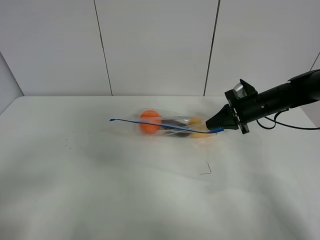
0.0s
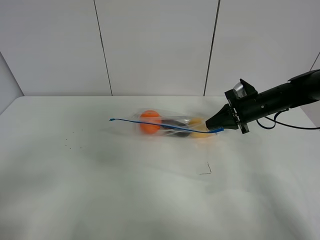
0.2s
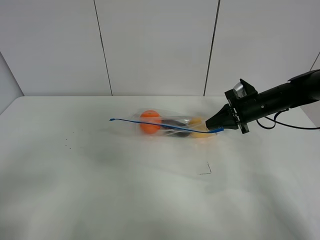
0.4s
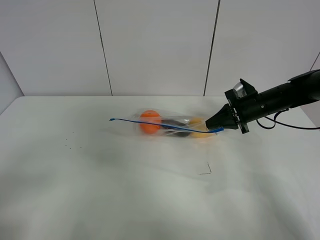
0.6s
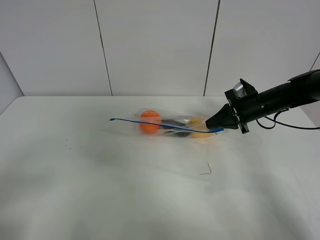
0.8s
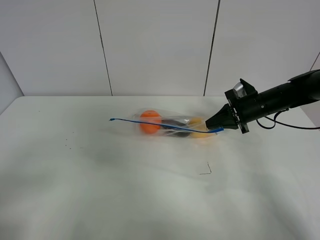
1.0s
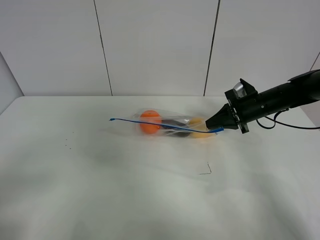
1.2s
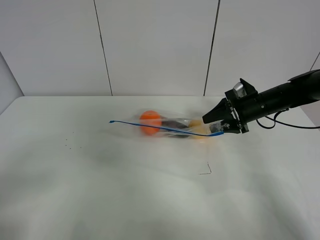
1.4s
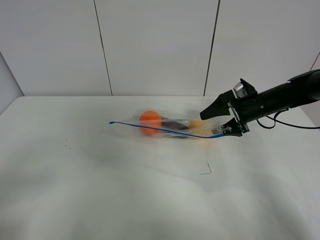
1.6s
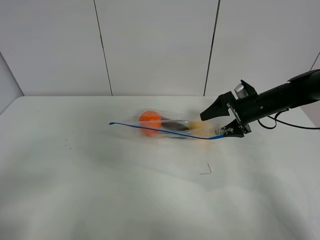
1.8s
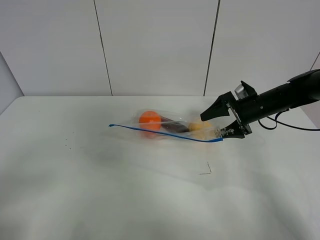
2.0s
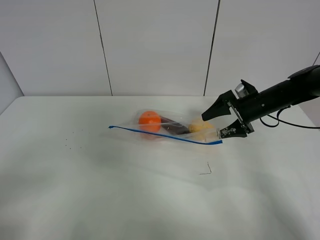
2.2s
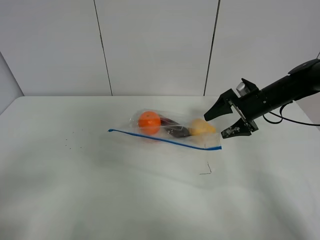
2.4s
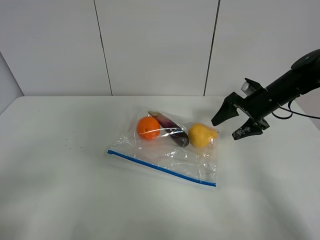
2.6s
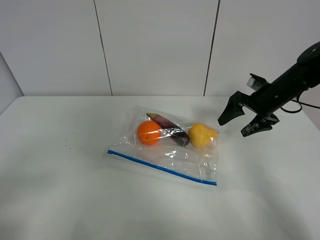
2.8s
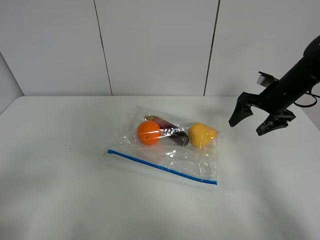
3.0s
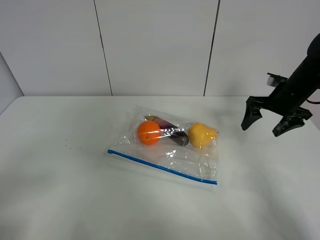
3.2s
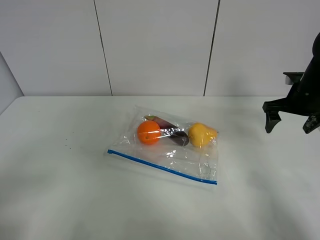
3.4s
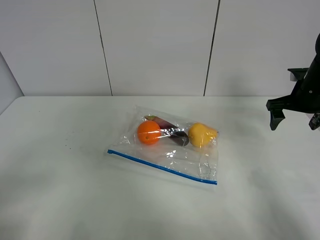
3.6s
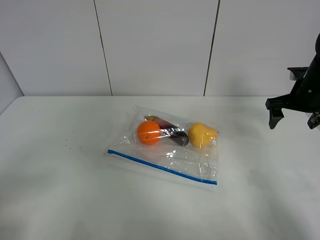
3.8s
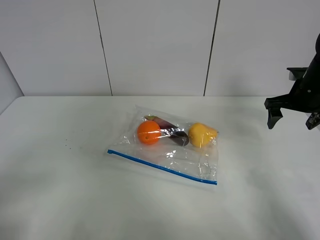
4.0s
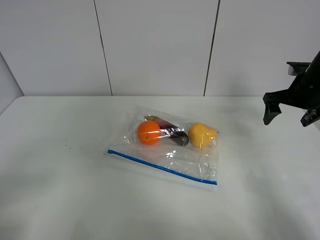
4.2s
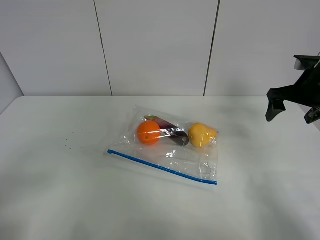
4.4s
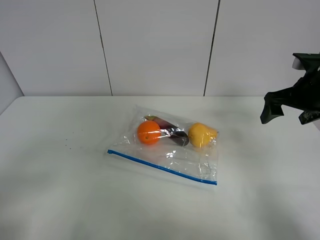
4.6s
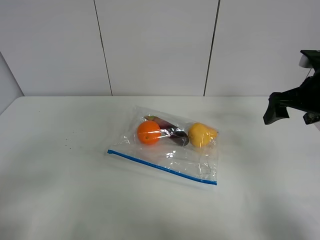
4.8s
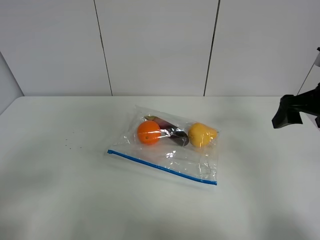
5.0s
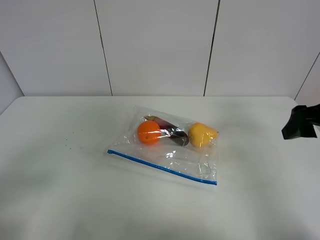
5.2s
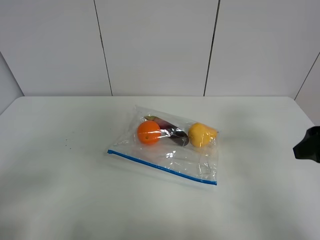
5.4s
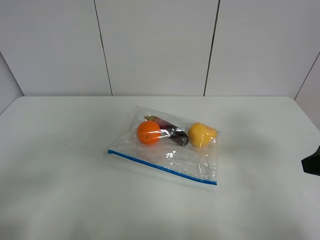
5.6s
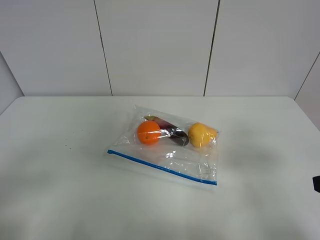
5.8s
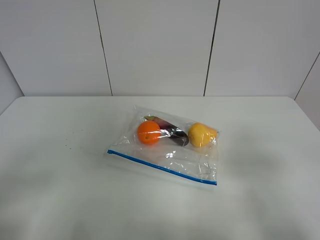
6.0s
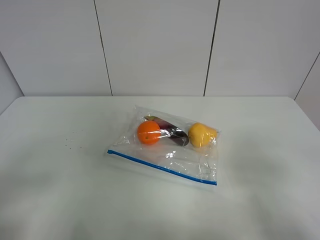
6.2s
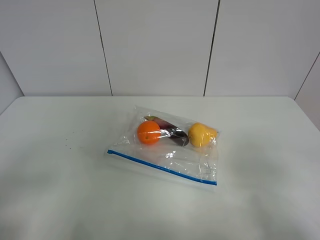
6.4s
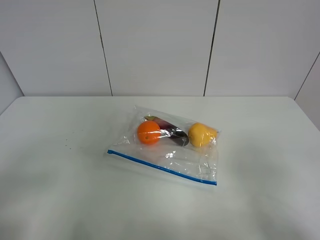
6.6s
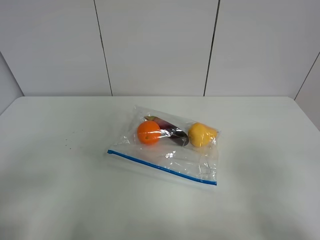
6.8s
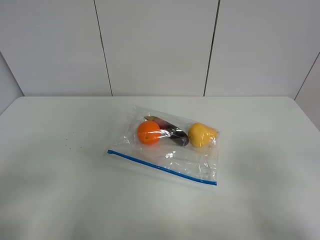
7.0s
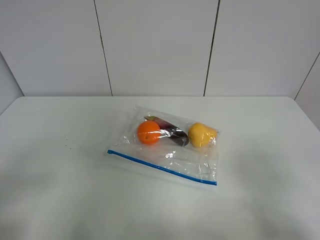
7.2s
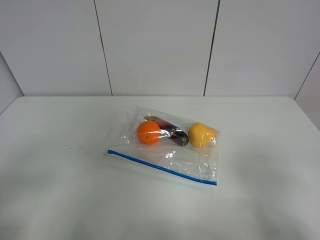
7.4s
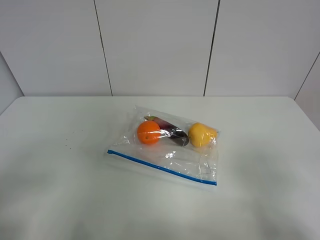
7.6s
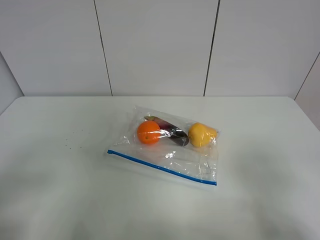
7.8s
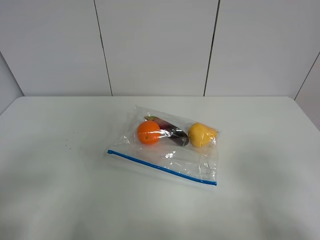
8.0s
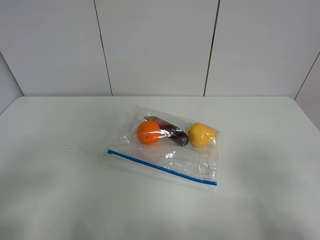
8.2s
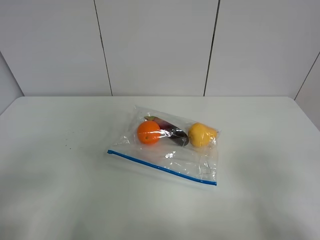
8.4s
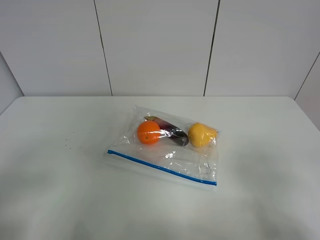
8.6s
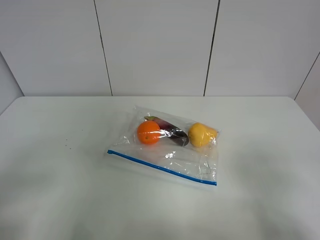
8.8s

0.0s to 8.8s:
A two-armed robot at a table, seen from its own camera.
Step, 0.0s to 2.4s: Place the fruit bag with right gripper.
0.0s to 1.4s: The right gripper opens its fingers.
1.4s to 3.0s: The right gripper ends up some 5 cm from where it was.
3.0s to 4.4s: The right gripper heads upward, covering about 5 cm.
4.4s to 5.8s: The right gripper moves backward, roughly 25 cm.
7.4s to 8.8s: The two grippers keep their place.

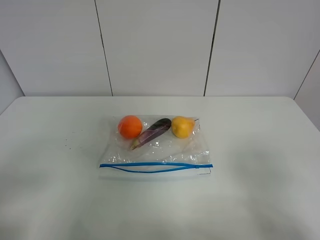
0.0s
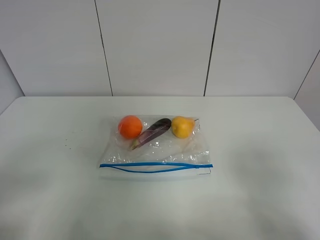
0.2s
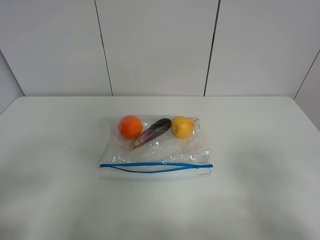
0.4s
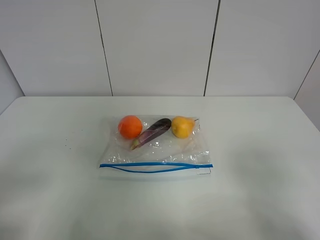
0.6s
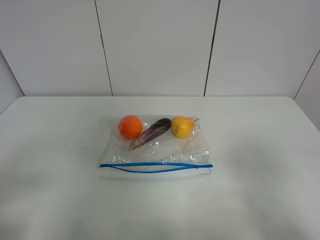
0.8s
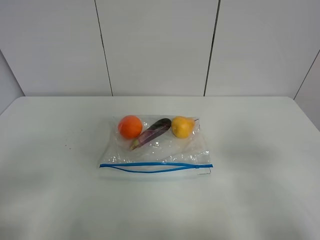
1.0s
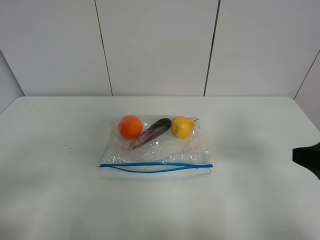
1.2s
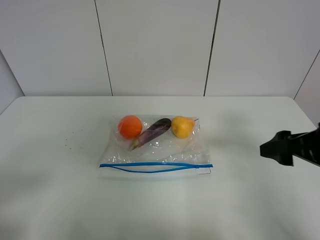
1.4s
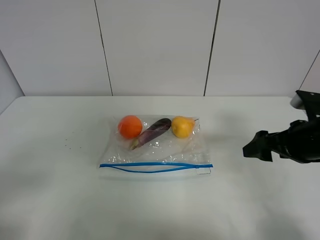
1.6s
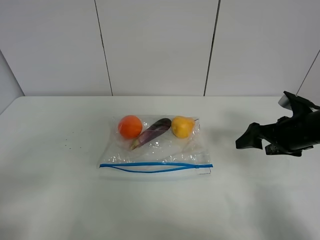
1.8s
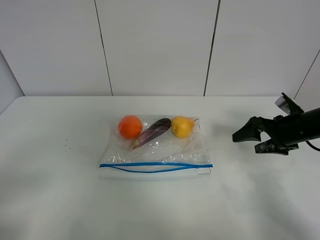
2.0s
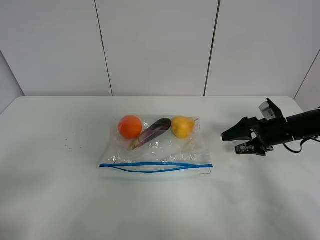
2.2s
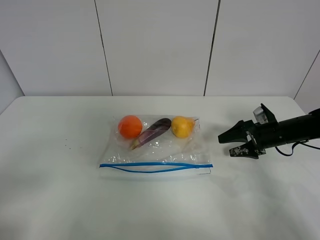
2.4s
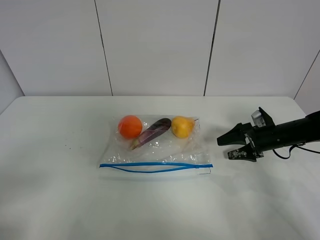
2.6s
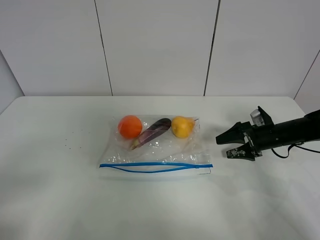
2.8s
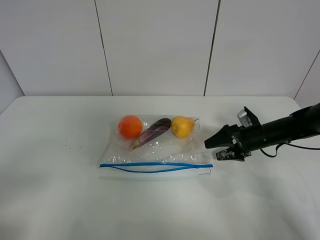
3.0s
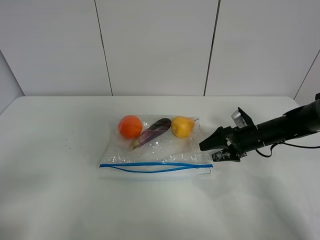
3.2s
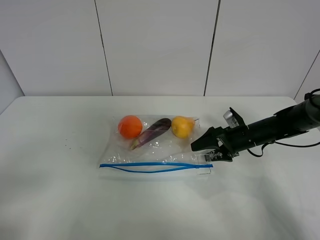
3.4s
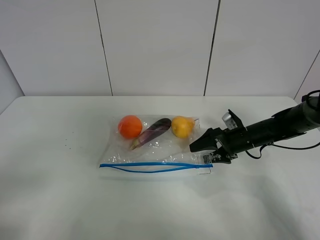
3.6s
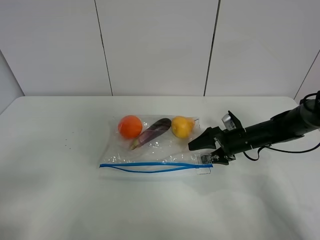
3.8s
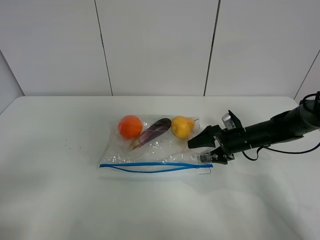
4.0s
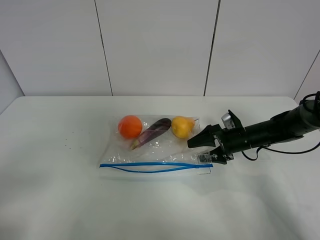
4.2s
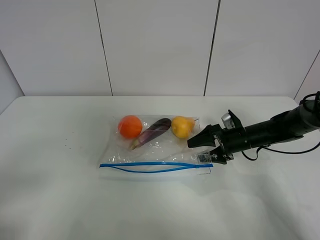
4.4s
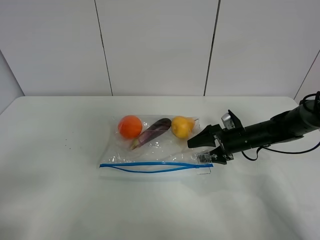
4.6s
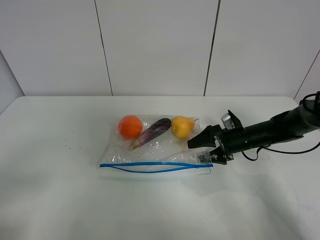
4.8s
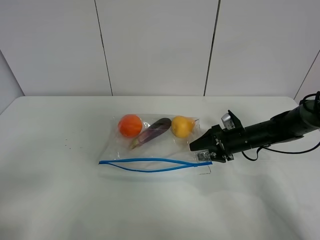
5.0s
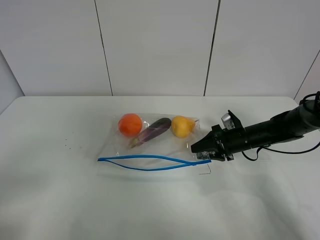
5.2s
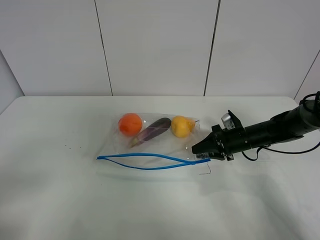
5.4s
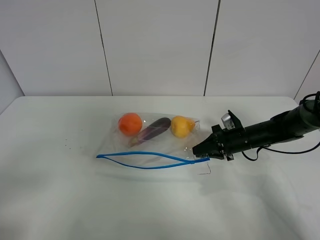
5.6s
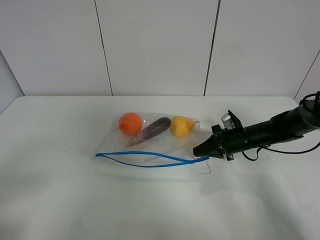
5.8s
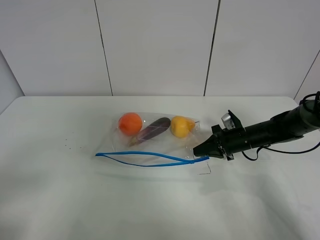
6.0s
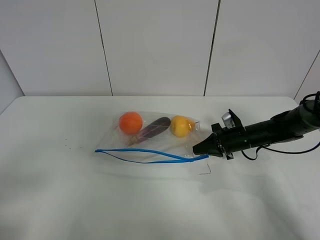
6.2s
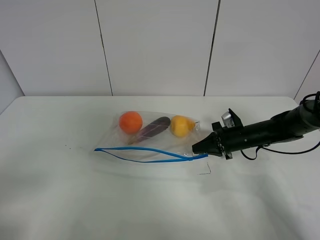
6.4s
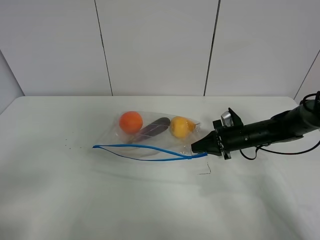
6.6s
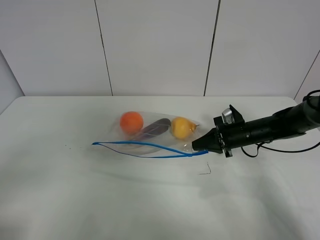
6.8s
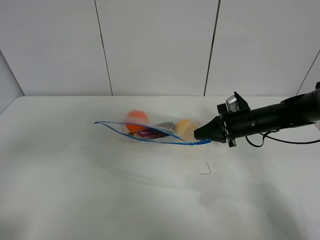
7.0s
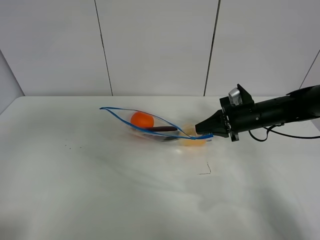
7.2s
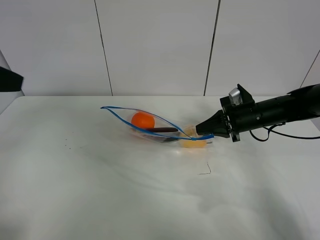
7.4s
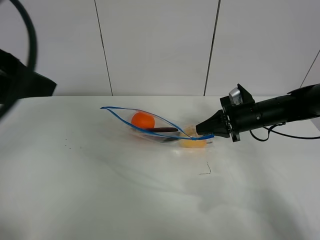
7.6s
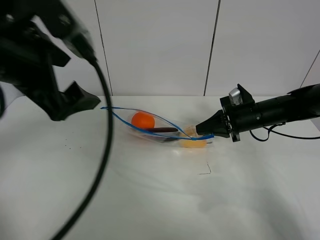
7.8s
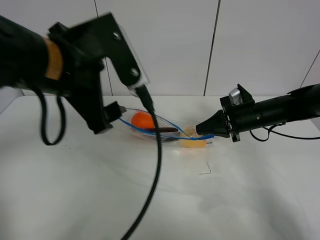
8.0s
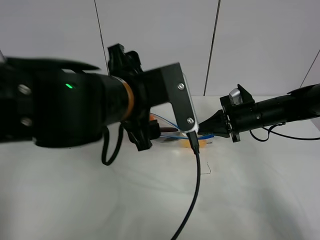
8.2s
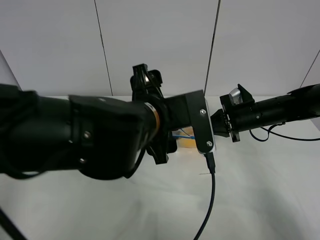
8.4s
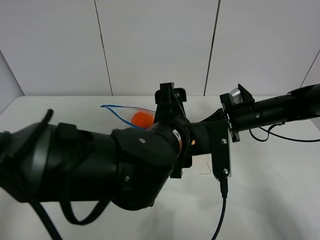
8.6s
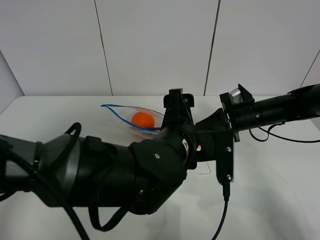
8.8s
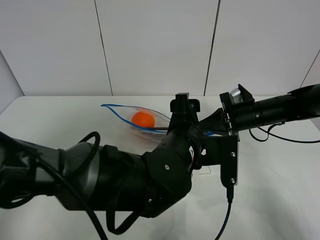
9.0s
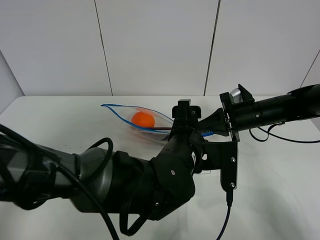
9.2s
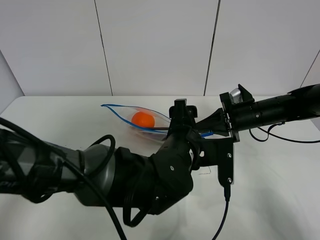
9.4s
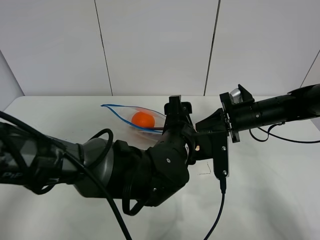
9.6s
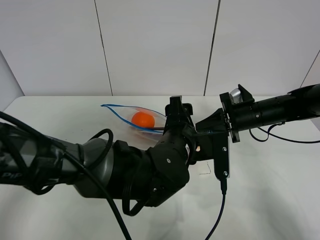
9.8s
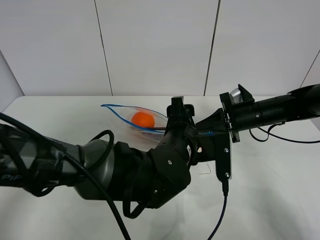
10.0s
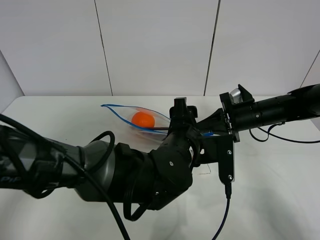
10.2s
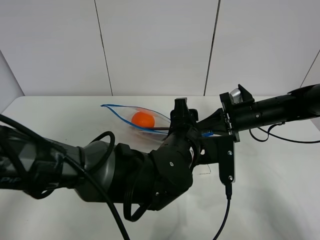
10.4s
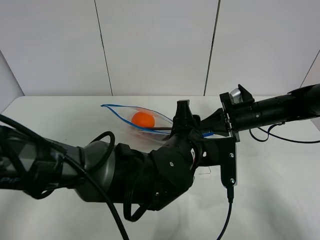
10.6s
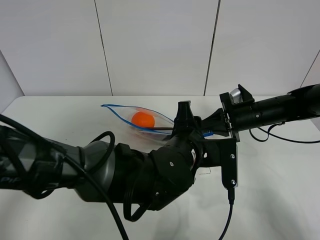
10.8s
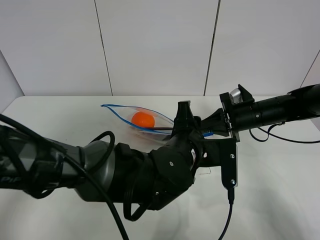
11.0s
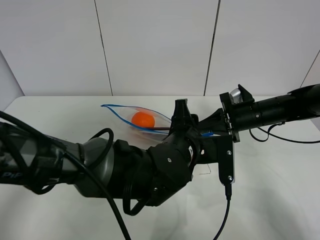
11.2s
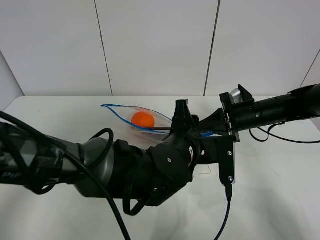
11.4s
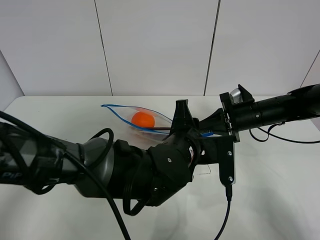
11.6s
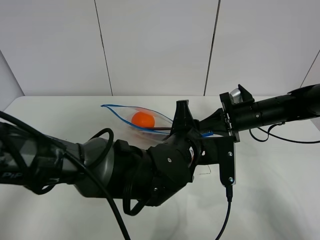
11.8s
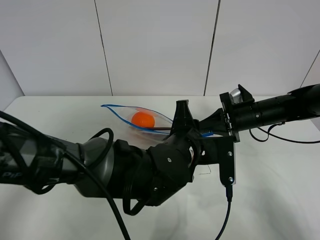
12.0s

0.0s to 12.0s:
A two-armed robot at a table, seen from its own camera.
Step, 0.0s to 5.8s: Grasp the fruit bag with right gripper.
Step, 6.0s to 7.4s: Lift the fruit bag with your right gripper.
0.0s to 1.6s: The right gripper goes about 20 cm forward.
1.6s to 3.0s: The right gripper moves downward and forward, about 20 cm.
3.0s to 4.4s: The grippers make only small movements.
4.4s to 6.0s: The right gripper closes.
6.0s to 7.6s: The left gripper moves forward, upward and to the right, approximately 25 cm. Meanwhile the right gripper heads upward, covering about 10 cm.
7.6s to 9.0s: The left gripper goes about 35 cm to the right and downward.
9.0s to 10.4s: The grippers move only a little.
10.4s to 12.0s: Both grippers stay about where they are.

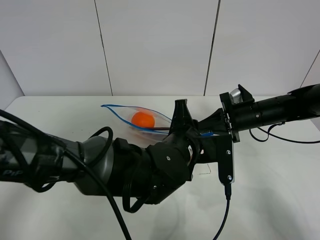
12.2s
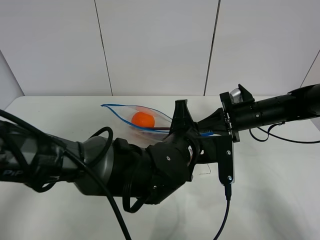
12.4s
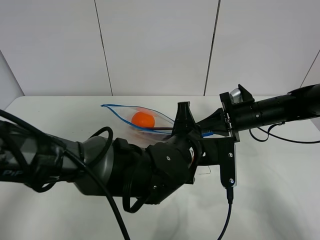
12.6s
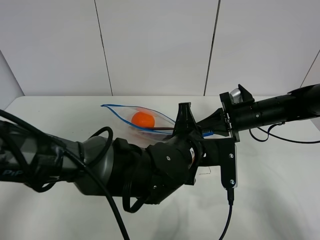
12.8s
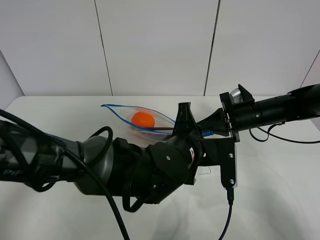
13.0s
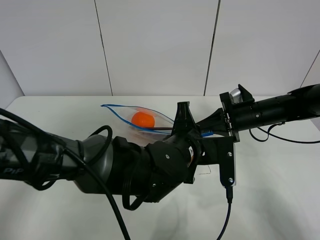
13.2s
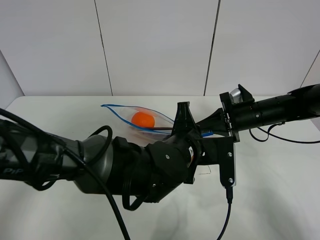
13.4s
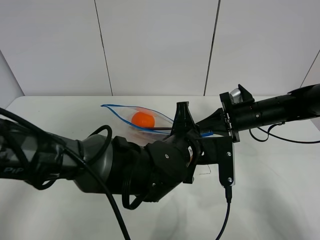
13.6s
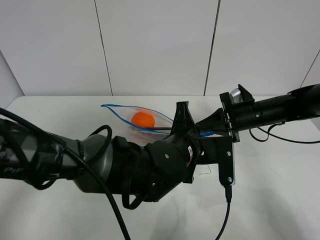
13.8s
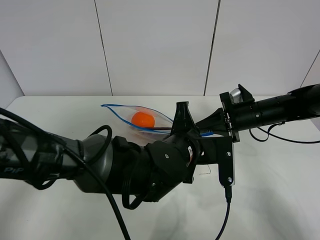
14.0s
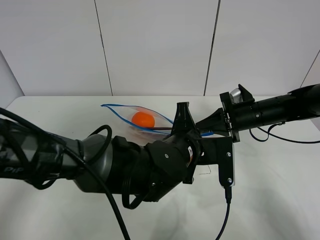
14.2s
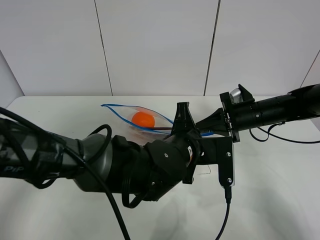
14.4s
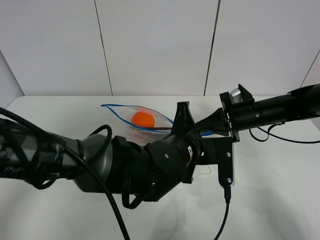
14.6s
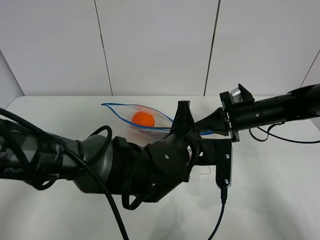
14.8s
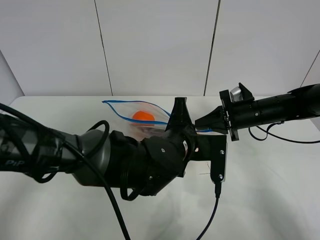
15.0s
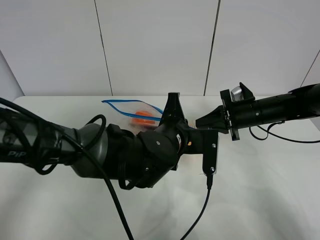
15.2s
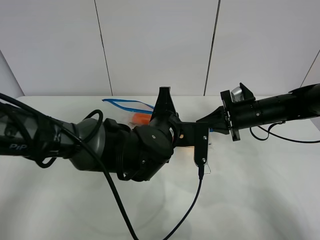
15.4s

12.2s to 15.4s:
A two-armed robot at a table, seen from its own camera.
12.2s to 13.8s: Neither gripper changes place.
13.8s to 15.4s: The left gripper ends up approximately 5 cm from where it was.
